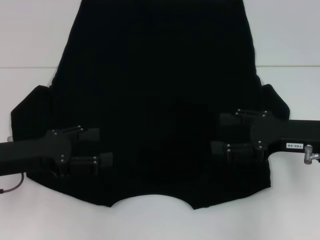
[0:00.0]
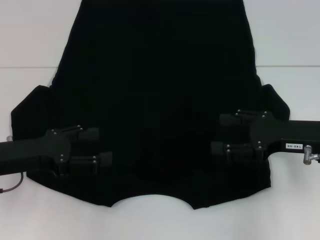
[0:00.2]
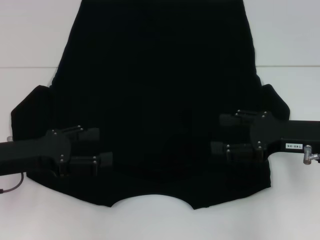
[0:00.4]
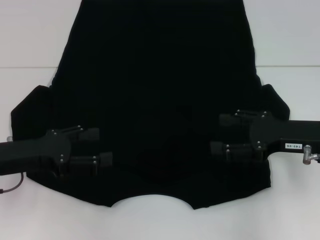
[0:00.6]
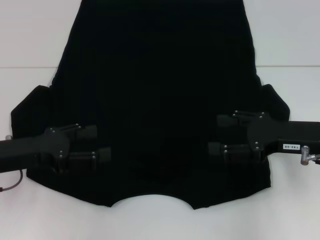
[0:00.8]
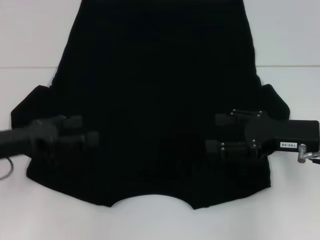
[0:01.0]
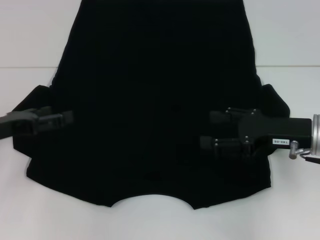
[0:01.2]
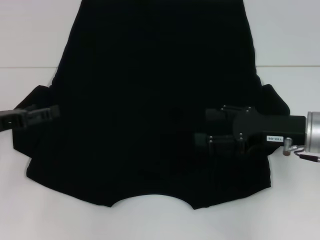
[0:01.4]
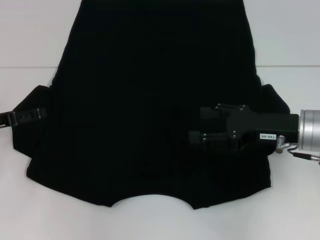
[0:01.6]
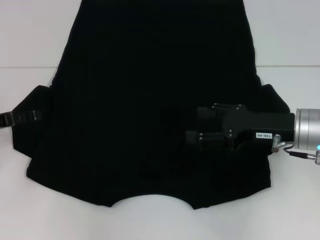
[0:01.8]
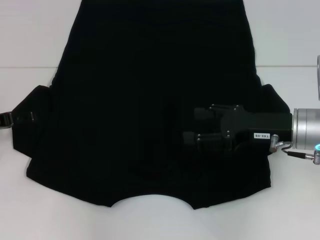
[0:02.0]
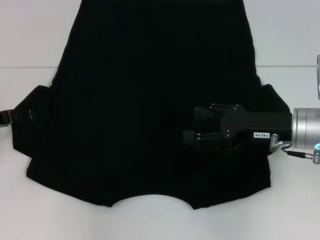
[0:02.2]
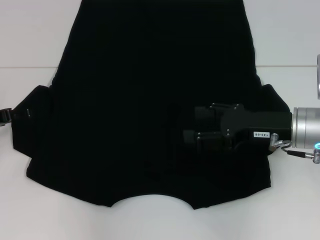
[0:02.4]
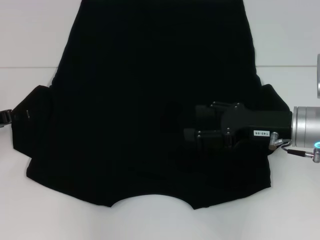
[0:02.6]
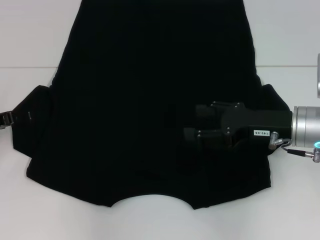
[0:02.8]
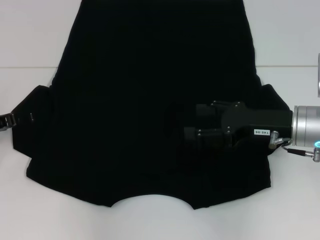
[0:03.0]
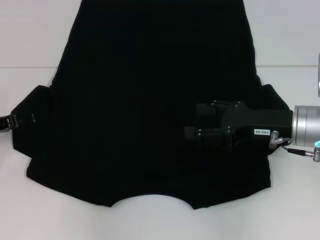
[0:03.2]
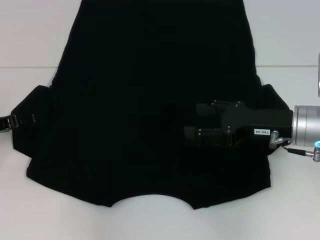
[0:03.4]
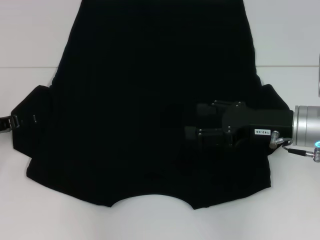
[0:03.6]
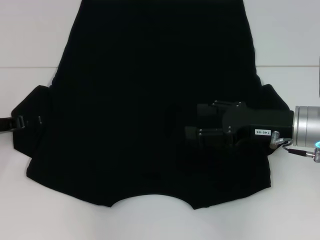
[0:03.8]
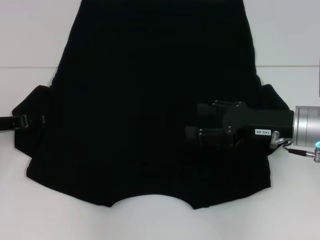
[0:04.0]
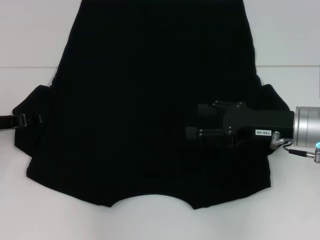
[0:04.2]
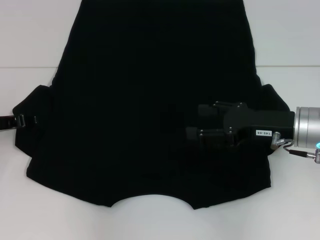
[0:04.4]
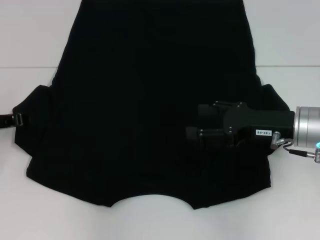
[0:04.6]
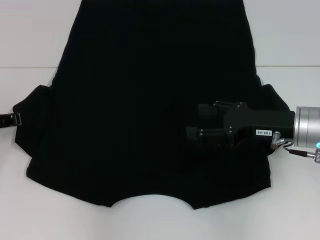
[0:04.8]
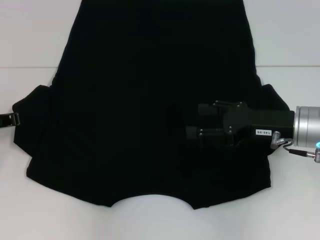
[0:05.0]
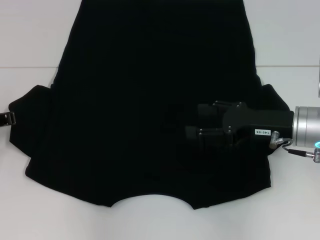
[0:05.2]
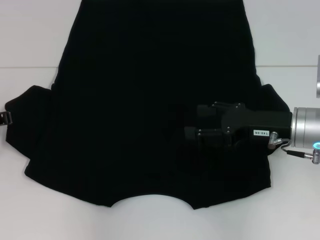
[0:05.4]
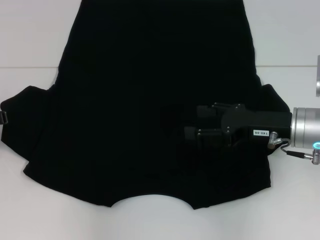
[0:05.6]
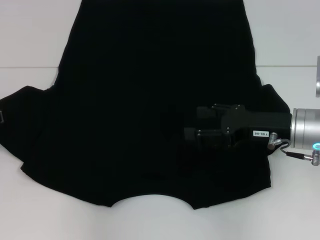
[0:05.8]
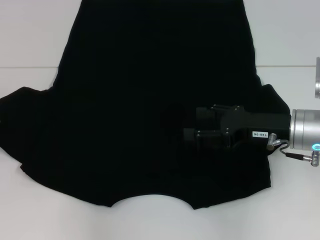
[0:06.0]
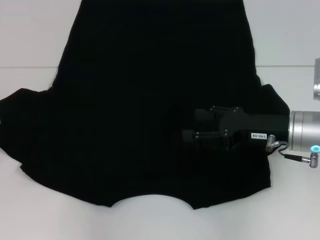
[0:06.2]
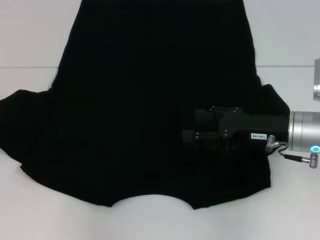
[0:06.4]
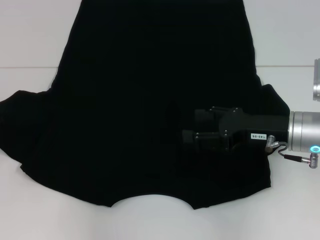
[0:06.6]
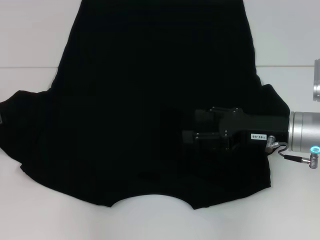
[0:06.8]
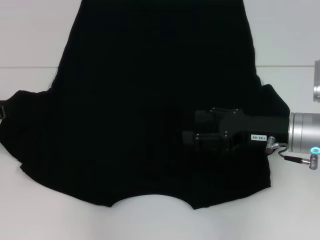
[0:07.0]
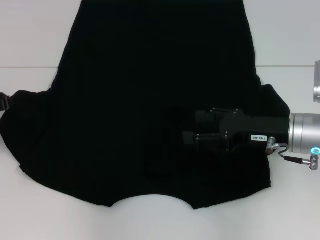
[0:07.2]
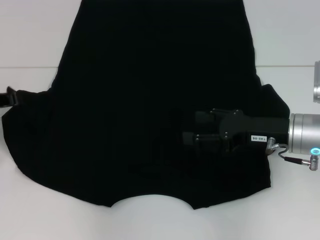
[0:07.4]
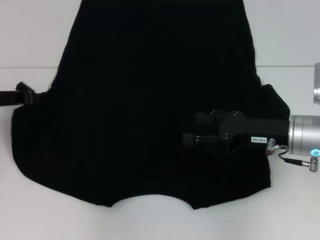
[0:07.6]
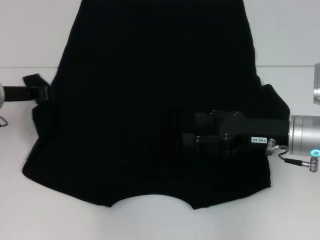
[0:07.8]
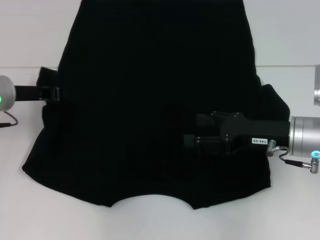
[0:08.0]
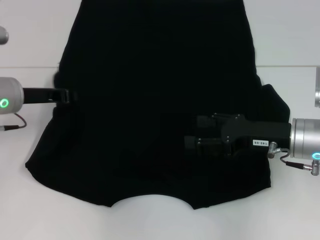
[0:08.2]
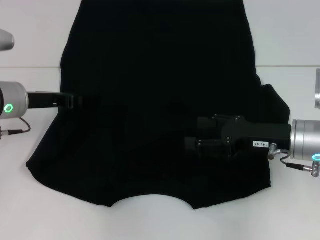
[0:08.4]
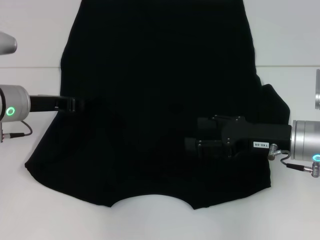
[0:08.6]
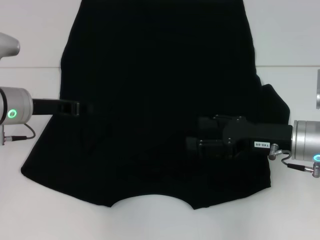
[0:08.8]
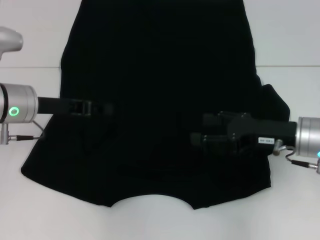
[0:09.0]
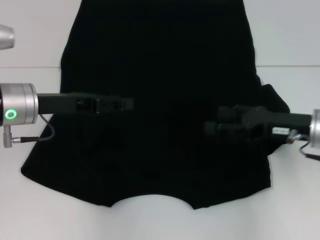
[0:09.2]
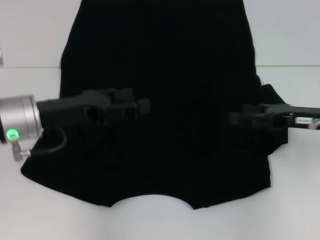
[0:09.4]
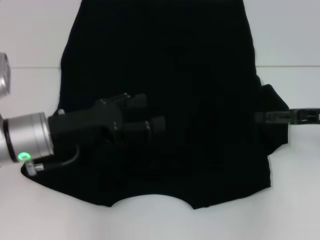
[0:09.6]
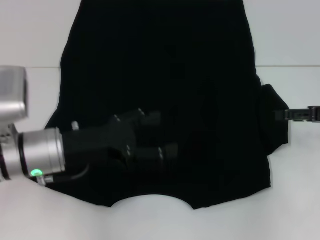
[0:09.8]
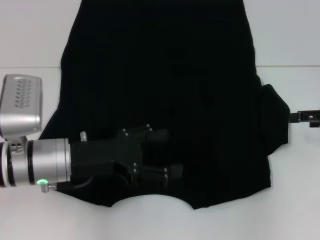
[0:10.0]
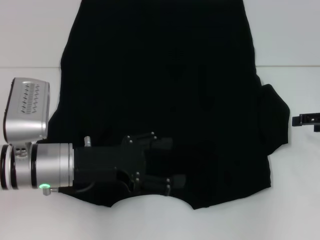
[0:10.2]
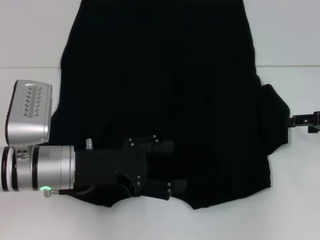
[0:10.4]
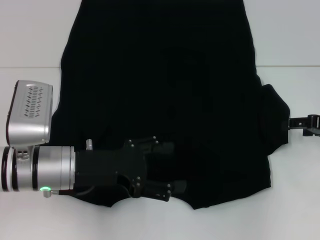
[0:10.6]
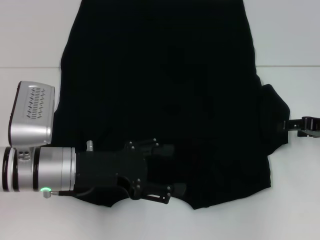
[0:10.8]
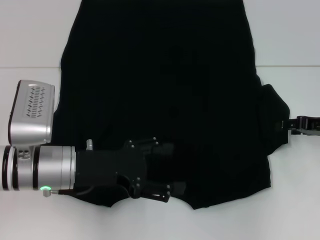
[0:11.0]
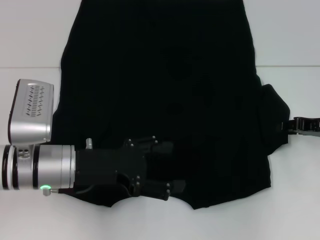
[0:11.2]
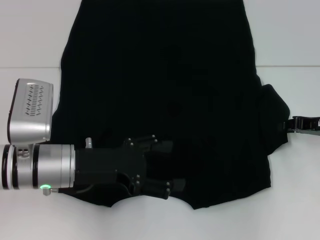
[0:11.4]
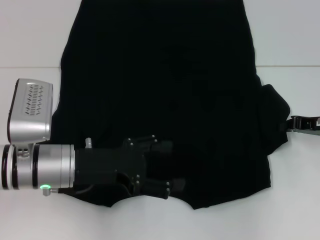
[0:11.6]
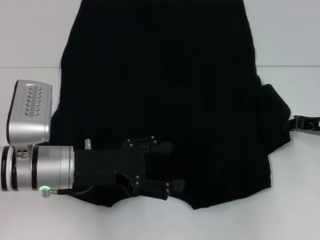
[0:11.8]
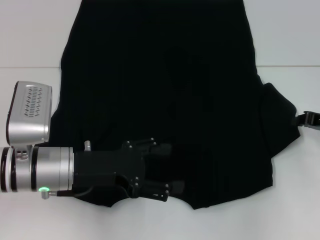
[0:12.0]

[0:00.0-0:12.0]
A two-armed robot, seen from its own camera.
Step, 0:00.0 to 0:08.6: Fold the bottom left sleeve with your left hand.
0:00.0 to 0:01.6: The left gripper goes roughly 5 cm to the left.
0:03.0 to 0:04.4: The grippers make only small movements.
0:04.4 to 0:06.0: The left gripper closes its fingers.
0:06.0 to 0:07.6: The left gripper moves about 5 cm.
0:07.6 to 0:09.0: The left gripper goes about 5 cm to the right.
0:09.0 to 0:10.4: The left gripper goes roughly 10 cm backward and to the right, and opens; the right gripper moves to the right, roughly 10 cm.
0:10.4 to 0:12.0: The right gripper closes up.

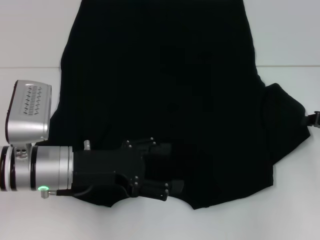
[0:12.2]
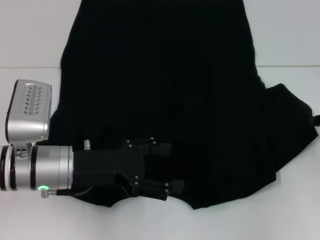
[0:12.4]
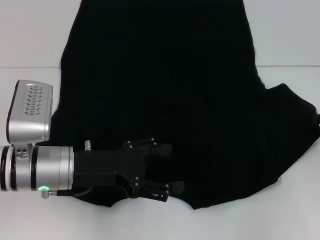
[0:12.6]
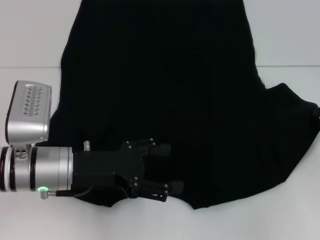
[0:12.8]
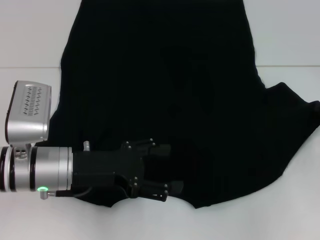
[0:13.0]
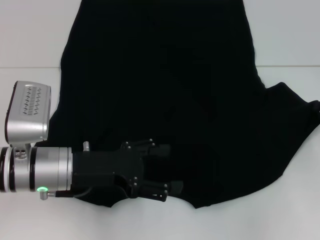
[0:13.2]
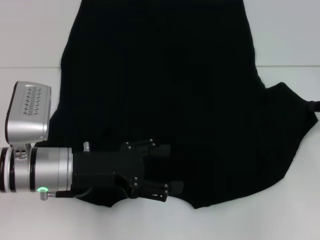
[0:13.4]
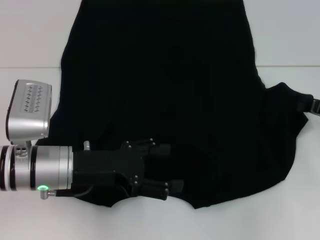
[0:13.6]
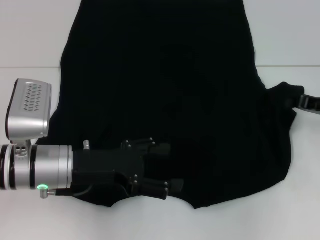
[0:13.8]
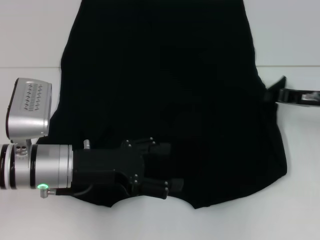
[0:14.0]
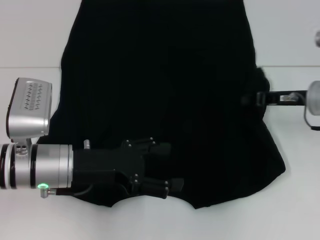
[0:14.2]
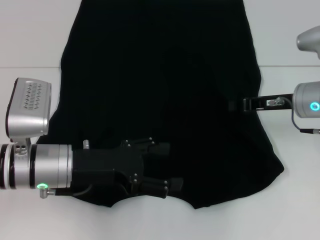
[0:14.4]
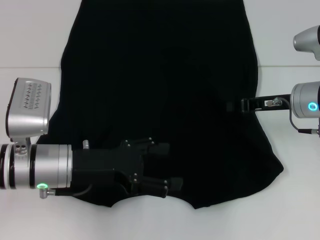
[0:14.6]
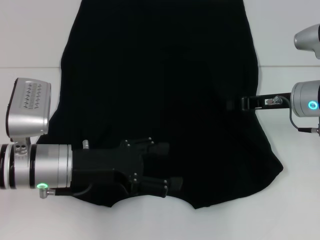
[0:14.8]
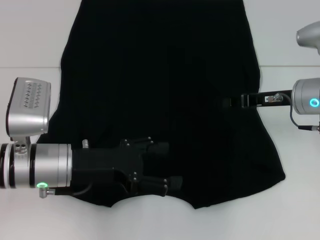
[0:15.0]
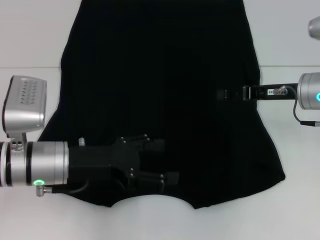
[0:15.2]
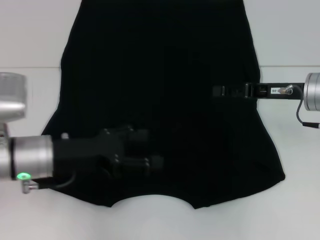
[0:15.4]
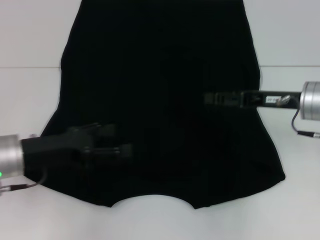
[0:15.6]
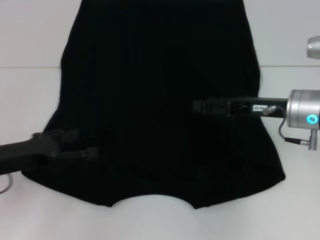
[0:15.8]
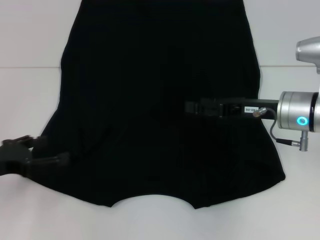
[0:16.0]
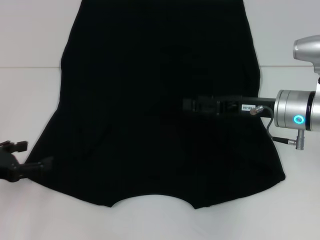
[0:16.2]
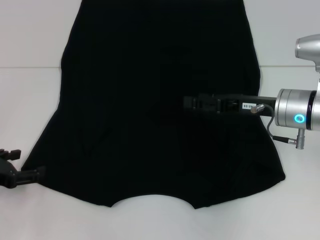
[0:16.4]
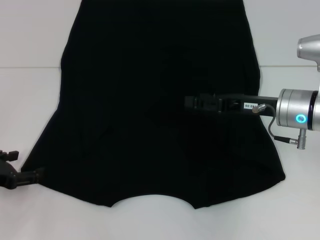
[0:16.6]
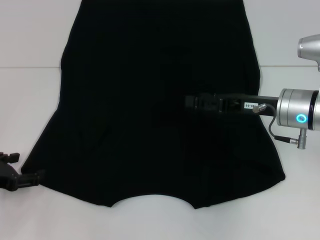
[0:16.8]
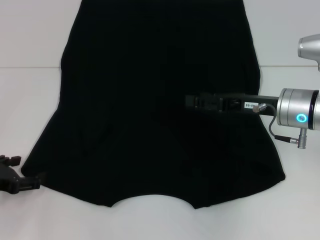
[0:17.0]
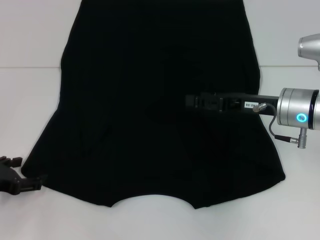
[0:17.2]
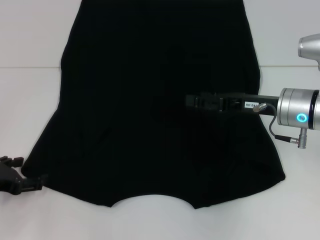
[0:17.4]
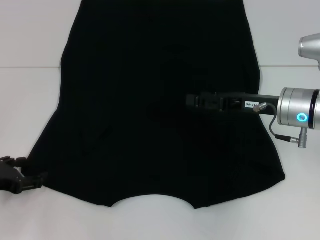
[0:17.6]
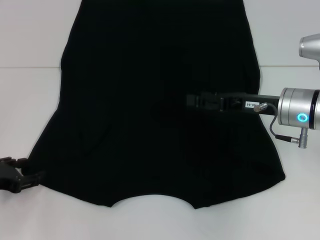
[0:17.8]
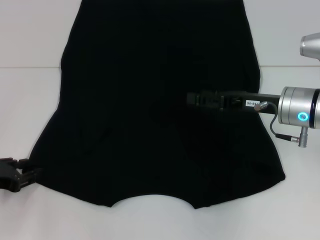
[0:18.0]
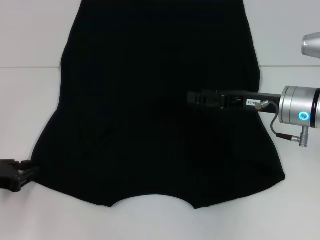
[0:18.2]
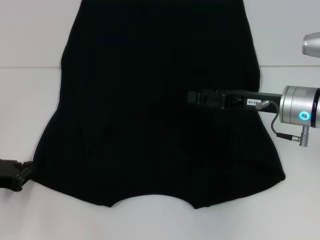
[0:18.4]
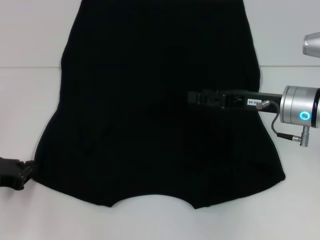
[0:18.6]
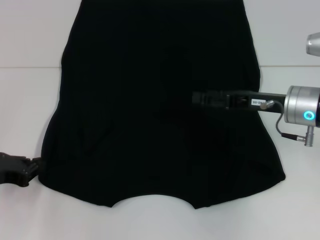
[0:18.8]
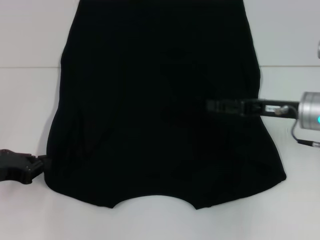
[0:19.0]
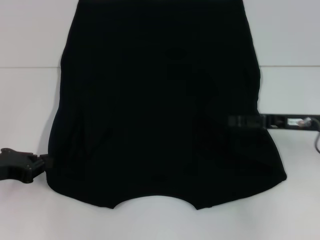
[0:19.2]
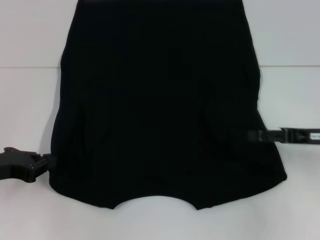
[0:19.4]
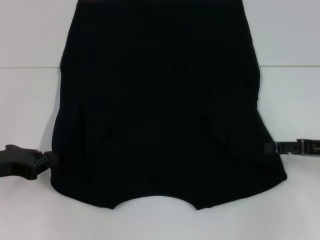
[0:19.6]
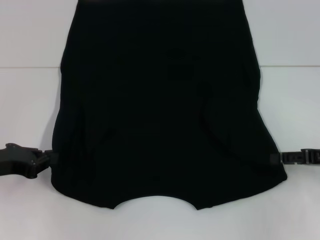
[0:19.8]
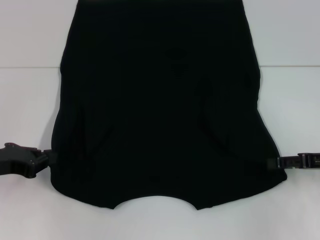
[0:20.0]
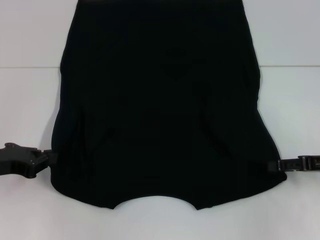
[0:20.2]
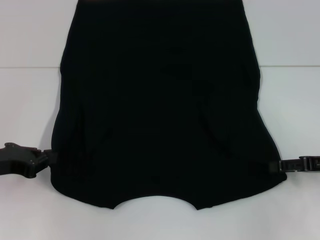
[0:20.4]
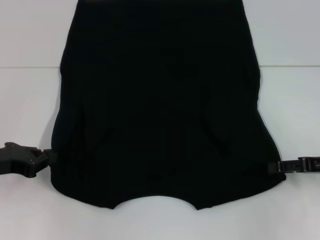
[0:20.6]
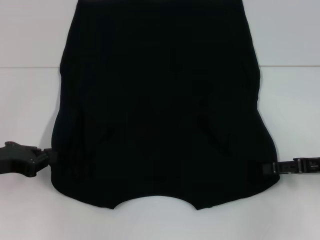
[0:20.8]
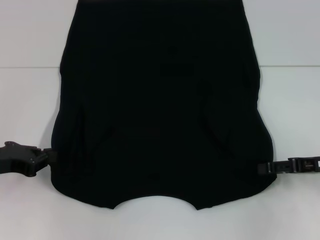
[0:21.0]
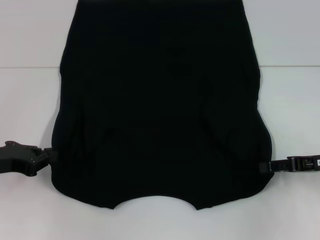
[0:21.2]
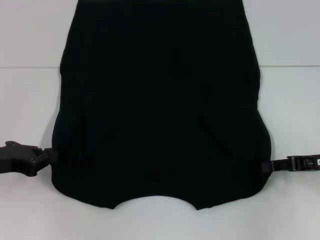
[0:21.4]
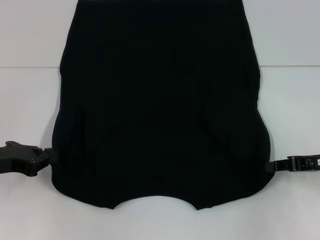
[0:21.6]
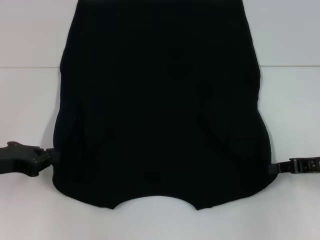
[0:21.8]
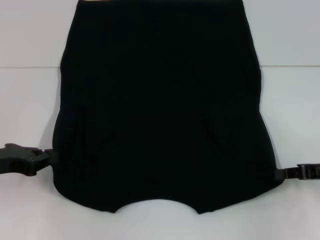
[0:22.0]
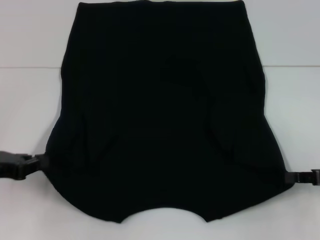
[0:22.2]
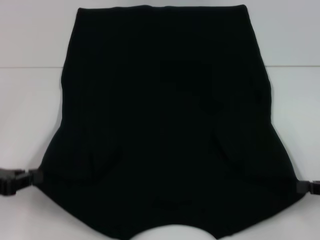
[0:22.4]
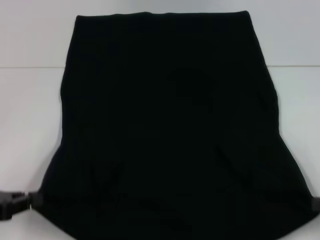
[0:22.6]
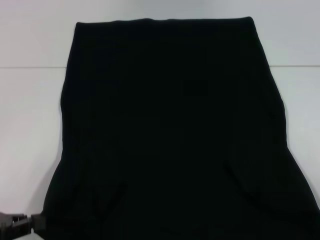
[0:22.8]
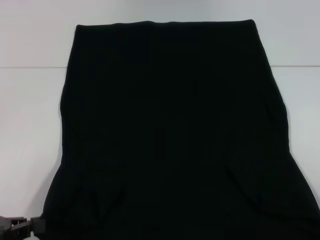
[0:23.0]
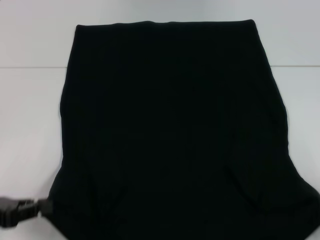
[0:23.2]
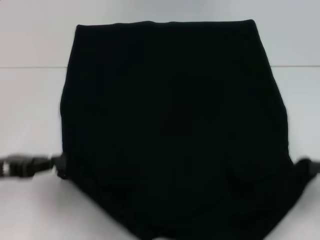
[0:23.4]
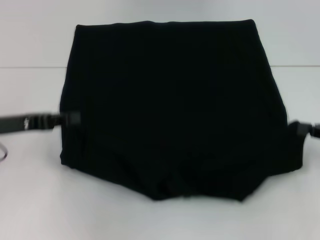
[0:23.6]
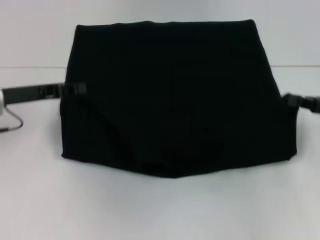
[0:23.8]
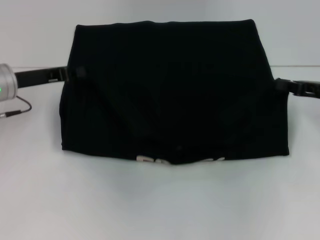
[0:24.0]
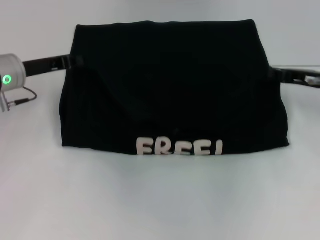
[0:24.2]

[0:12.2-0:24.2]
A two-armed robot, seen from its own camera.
Step, 0:12.2 to 0:14.8: Fold the bottom right sleeve with your right hand.
Step, 0:15.0 to 0:18.4: Grab the bottom left corner with your left hand.
Step, 0:18.6 to 0:21.8: Grab the bottom right corner with your right hand.
0:12.2 to 0:13.8: The grippers make only small movements.
0:13.8 to 0:15.2: The right gripper heads to the left, covering some 10 cm.
0:15.2 to 0:16.6: The right gripper opens, while the left gripper shifts approximately 15 cm to the left.
0:16.6 to 0:18.2: The left gripper closes its fingers.
0:18.2 to 0:19.8: The right gripper moves to the right and backward, approximately 15 cm; the left gripper closes up.
0:19.8 to 0:21.2: The grippers stay close to where they were, moving slightly.
0:21.2 to 0:22.6: The left gripper is displaced backward by about 5 cm, while the right gripper heads backward and to the right, covering about 10 cm, and closes its fingers.
0:22.6 to 0:24.2: The right gripper moves forward and to the left, some 20 cm. Meanwhile the left gripper moves forward, some 20 cm.
